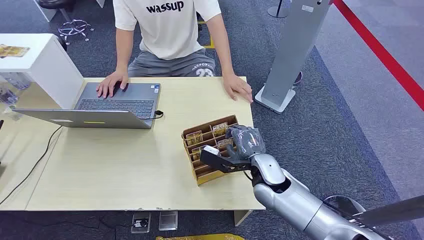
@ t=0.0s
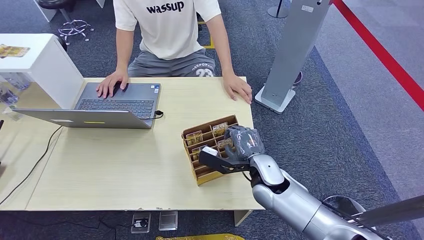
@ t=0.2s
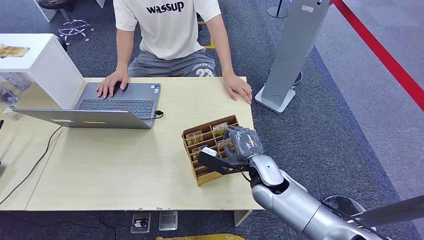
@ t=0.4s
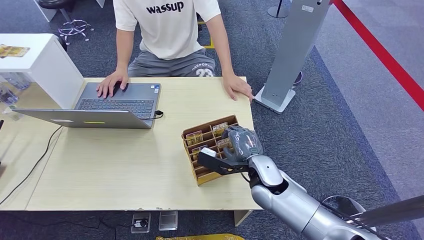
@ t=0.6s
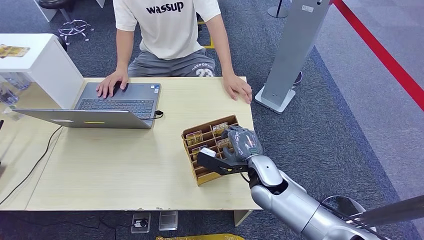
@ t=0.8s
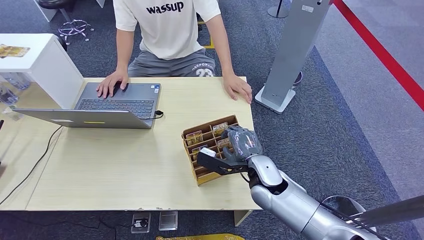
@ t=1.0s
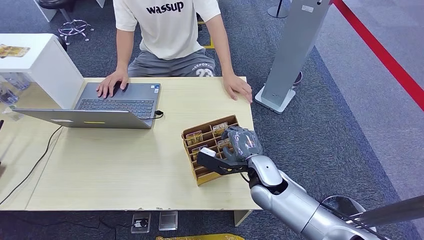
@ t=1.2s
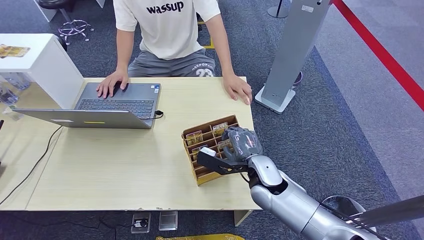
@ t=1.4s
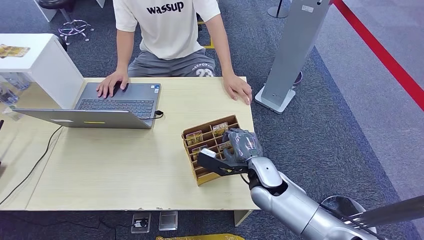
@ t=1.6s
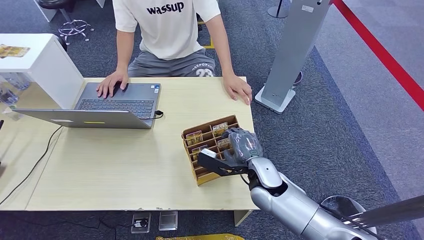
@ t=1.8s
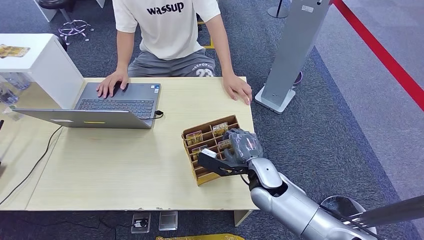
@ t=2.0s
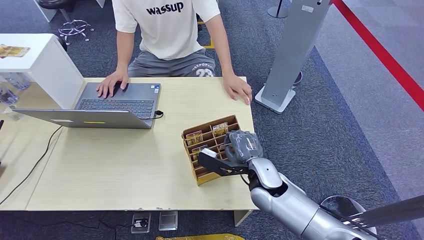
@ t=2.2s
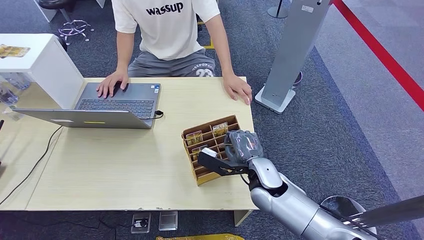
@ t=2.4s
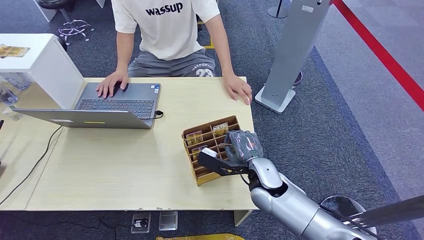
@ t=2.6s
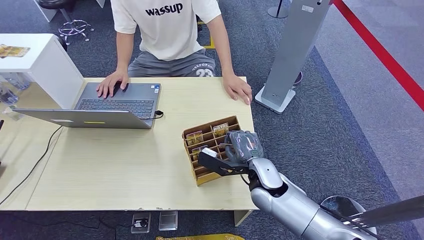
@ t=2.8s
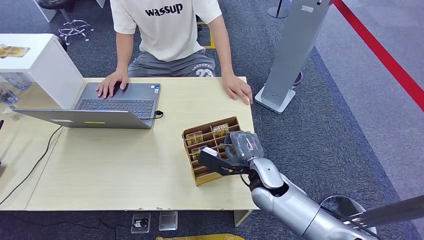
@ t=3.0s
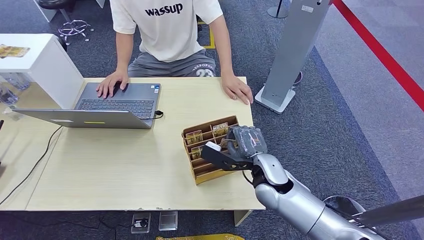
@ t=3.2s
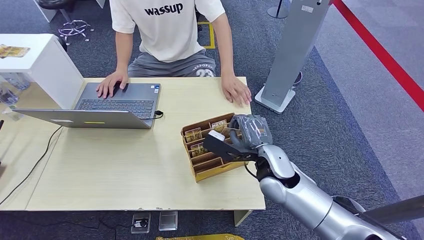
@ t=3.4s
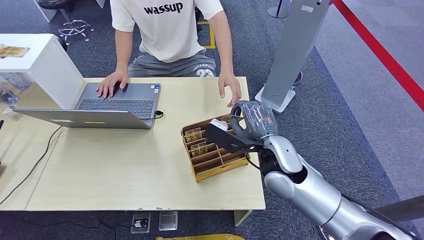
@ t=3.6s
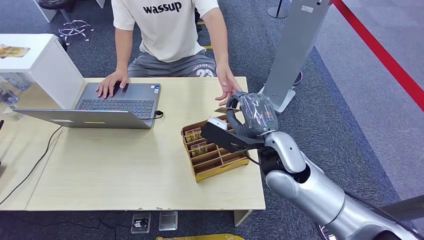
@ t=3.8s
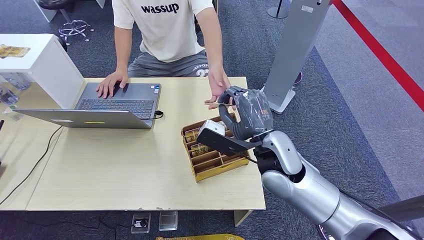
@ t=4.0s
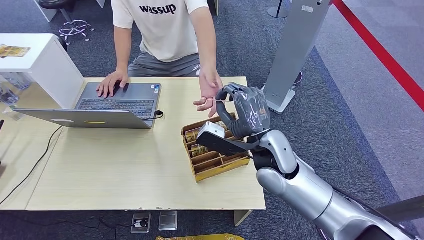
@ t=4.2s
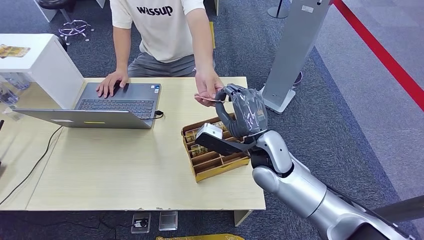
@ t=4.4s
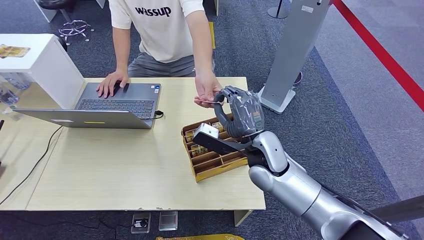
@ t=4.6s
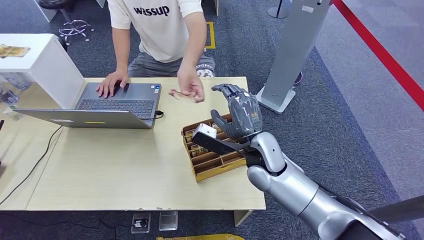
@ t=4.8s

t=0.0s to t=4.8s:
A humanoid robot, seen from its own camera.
Step, t=0.0s to t=3.4s: Pick up the room card from the card holder.
Step, t=4.0s to t=4.8s: Hand the room card to the target.
t=1.6s to t=3.2s: The hands move only a little.
t=3.2s to t=4.8s: The right hand moves upward, about 5 cm.

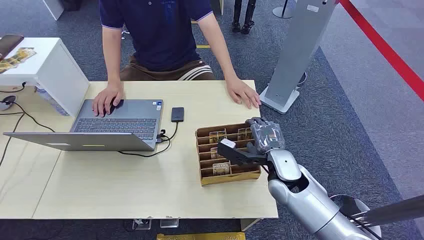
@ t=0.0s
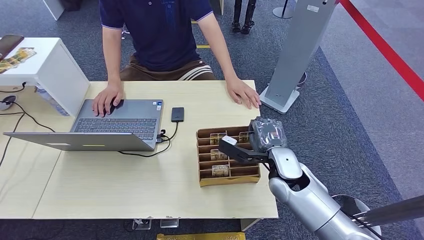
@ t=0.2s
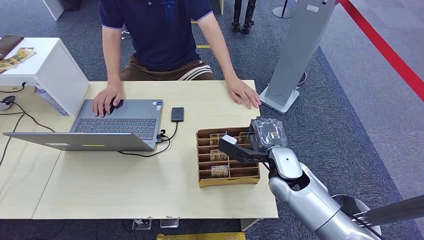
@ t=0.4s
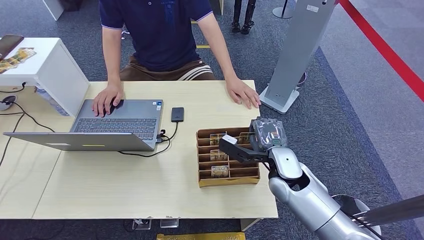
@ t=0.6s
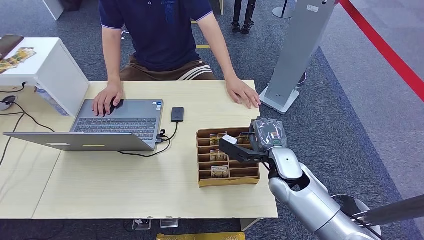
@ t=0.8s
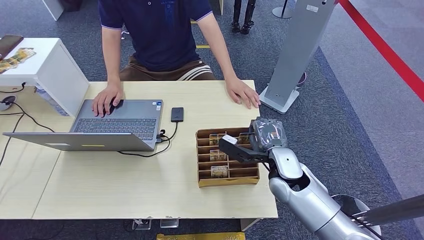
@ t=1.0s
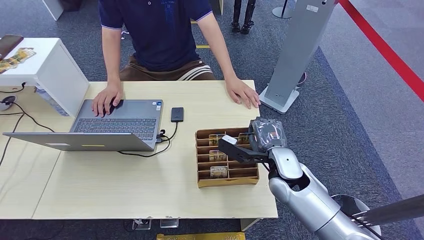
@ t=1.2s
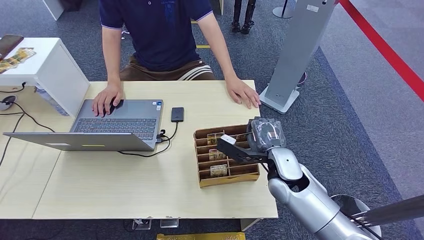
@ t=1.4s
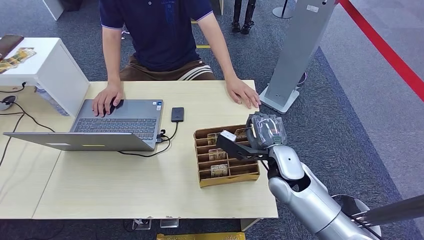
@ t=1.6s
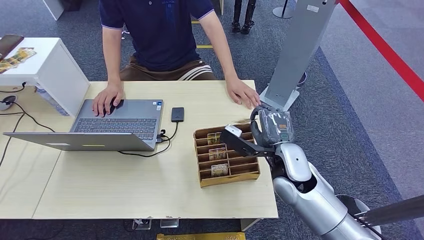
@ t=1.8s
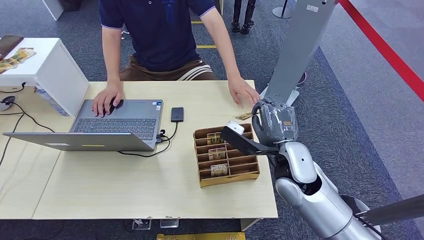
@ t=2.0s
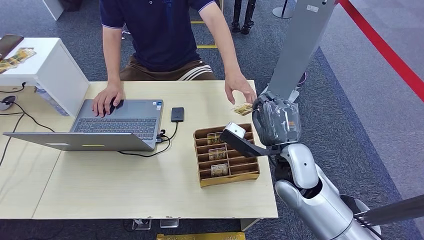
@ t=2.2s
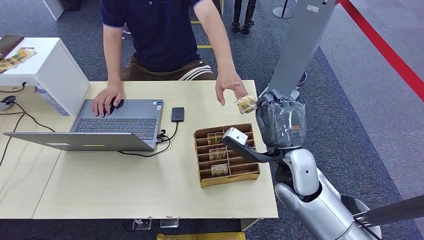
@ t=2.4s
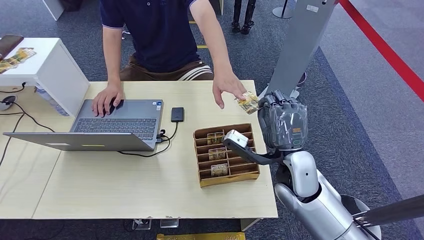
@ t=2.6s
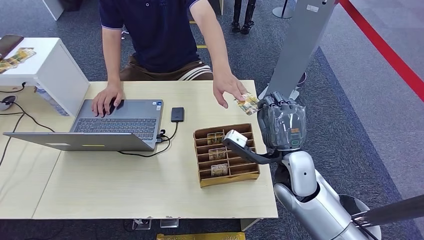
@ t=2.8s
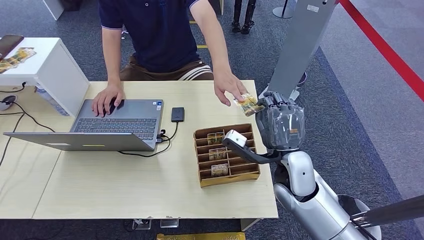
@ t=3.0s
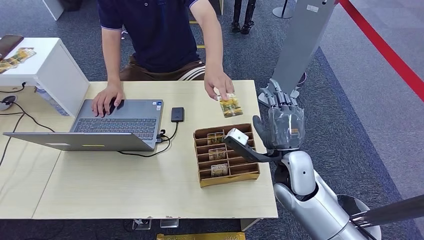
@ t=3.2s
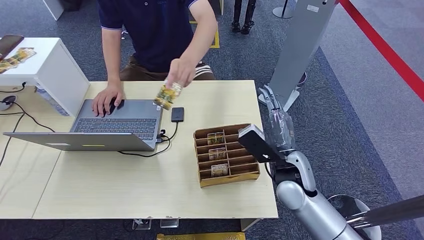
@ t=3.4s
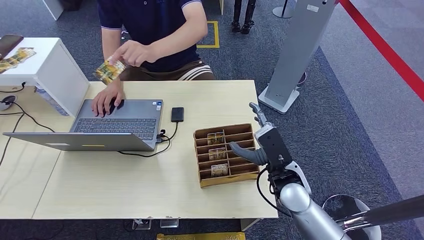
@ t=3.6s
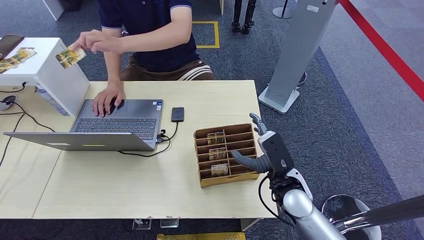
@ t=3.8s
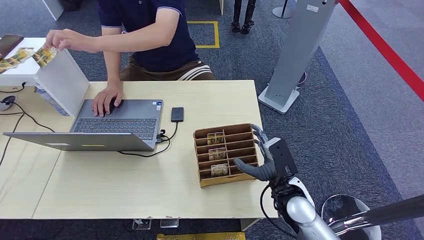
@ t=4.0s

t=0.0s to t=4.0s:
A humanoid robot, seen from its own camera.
Step, t=0.0s to t=2.2s: Pick up the room card from the card holder.
Step, t=2.6s to t=4.0s: Hand the room card to the target.
t=1.4s to t=2.6s: The right hand moves approximately 5 cm.
t=2.6s to t=4.0s: The right hand shifts roughly 10 cm downward.
